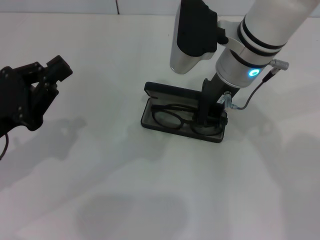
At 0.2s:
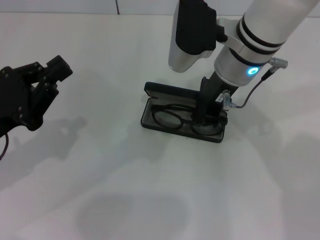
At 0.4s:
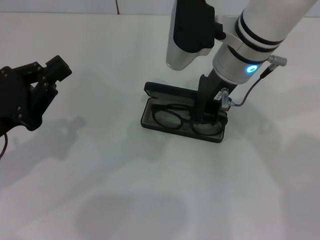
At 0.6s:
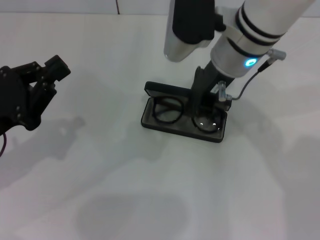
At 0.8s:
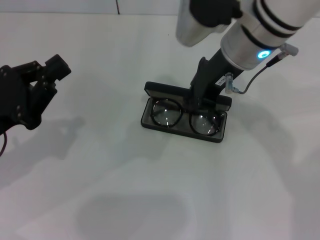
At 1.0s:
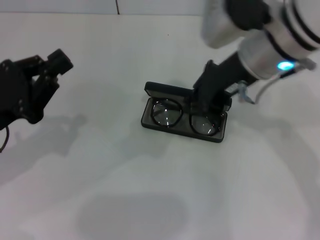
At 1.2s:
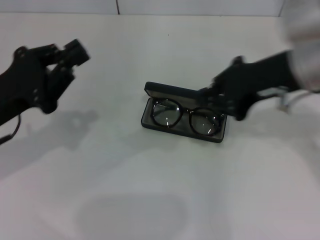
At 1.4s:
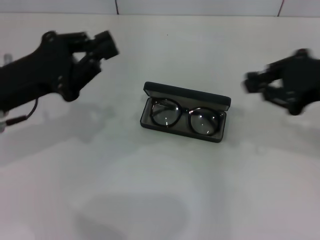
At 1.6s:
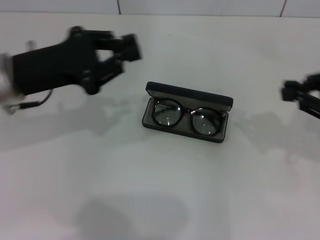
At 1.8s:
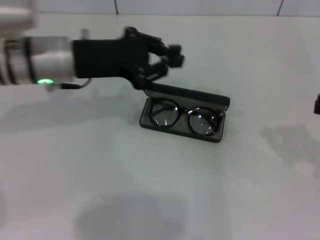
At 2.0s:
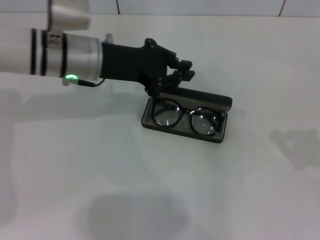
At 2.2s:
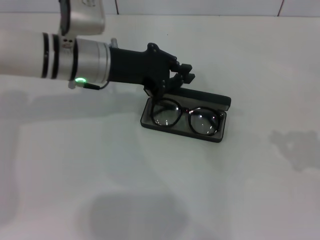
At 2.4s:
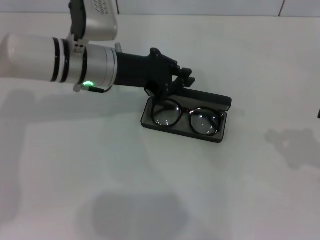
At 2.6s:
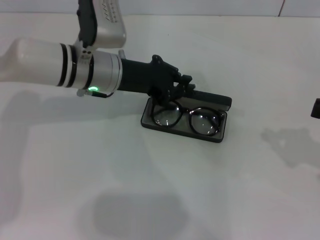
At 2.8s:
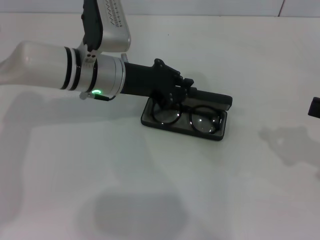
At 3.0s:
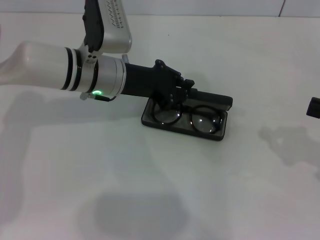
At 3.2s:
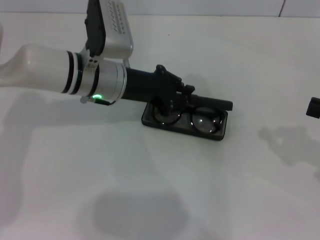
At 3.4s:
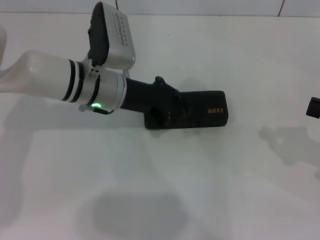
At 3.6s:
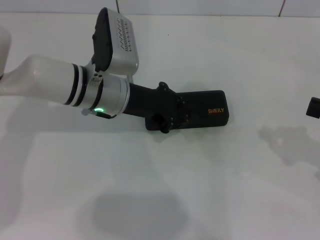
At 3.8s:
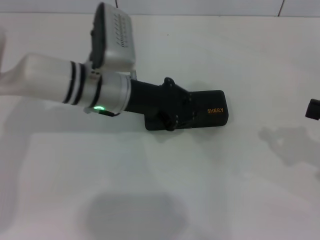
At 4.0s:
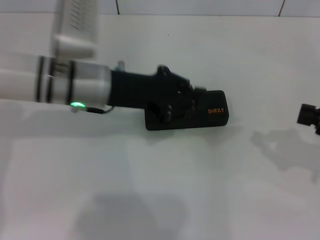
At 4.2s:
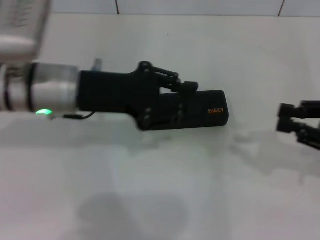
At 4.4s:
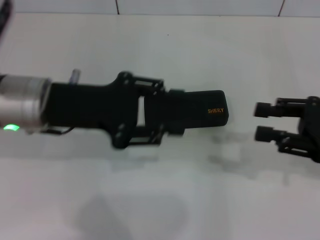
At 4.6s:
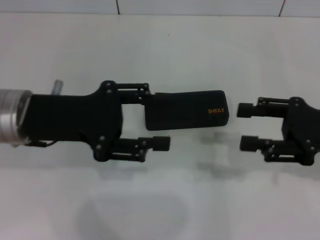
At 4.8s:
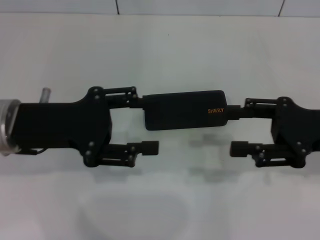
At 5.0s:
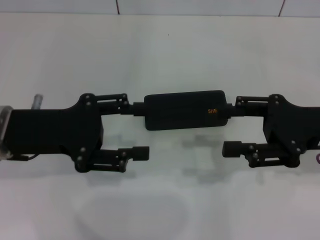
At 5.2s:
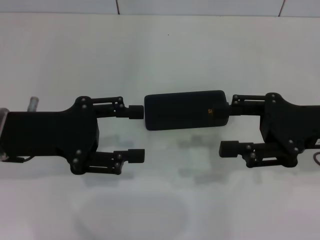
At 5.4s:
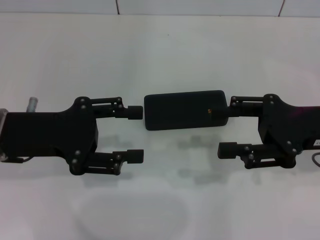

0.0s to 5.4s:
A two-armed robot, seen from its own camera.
Step, 0.8s to 3.4s: Close the glasses case with your left hand.
0.0s to 1.4s: The right gripper goes approximately 20 cm to the right and backward, while the left gripper heads forward, covering roughly 5 cm.
1.4s to 2.8s: The right gripper goes some 15 cm to the right and downward. Meanwhile the left gripper travels to the right and forward by approximately 15 cm.
2.8s to 4.0s: The left gripper ends up about 5 cm from where it was.
4.0s to 5.4s: The left gripper goes approximately 15 cm to the left and backward, and opens. The right gripper moves to the left, about 10 cm, and opens.

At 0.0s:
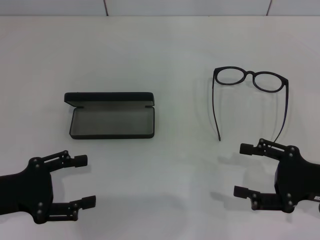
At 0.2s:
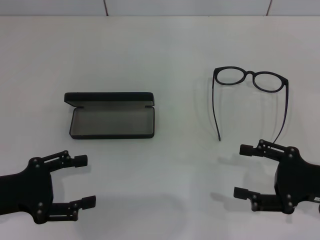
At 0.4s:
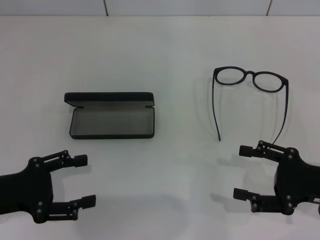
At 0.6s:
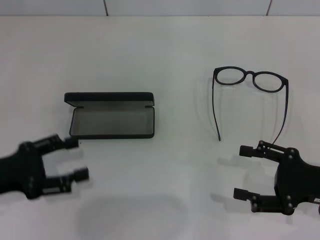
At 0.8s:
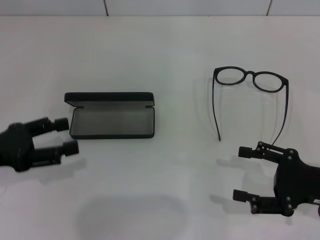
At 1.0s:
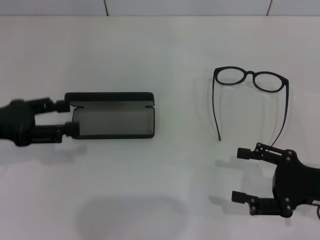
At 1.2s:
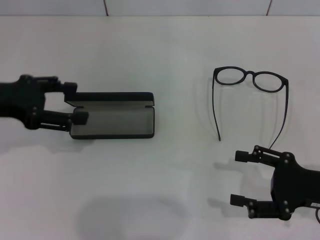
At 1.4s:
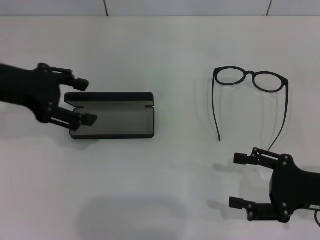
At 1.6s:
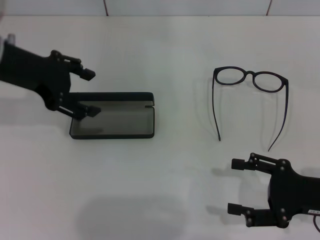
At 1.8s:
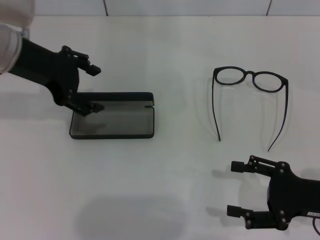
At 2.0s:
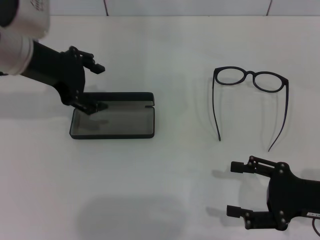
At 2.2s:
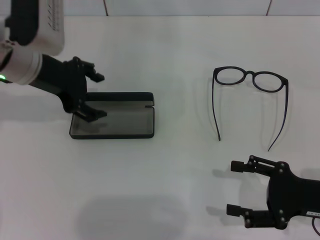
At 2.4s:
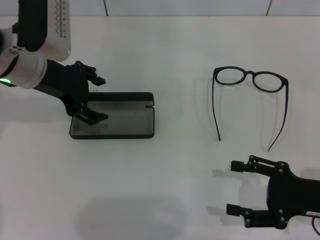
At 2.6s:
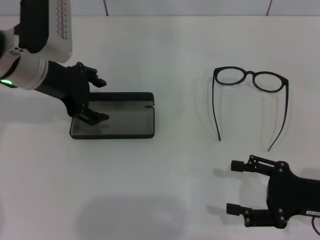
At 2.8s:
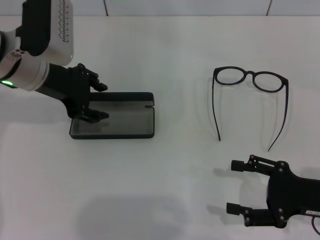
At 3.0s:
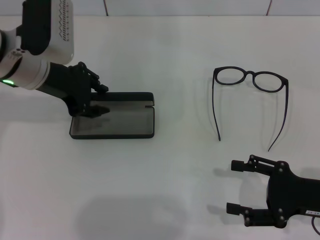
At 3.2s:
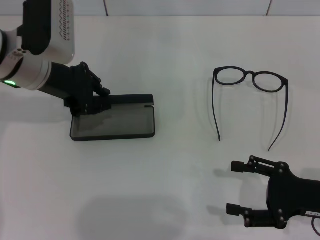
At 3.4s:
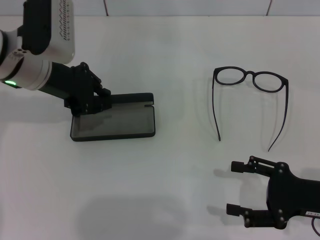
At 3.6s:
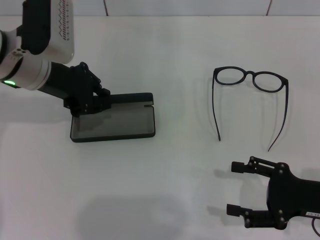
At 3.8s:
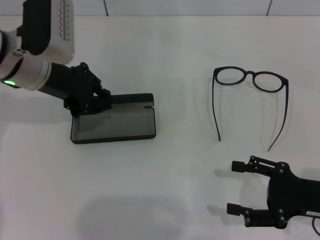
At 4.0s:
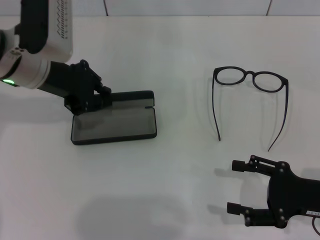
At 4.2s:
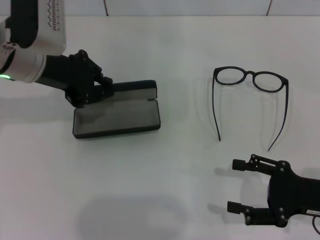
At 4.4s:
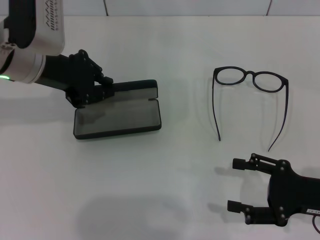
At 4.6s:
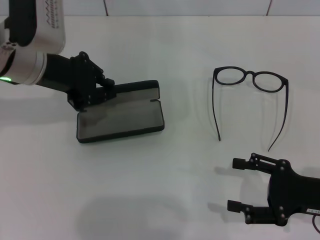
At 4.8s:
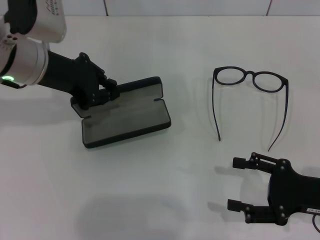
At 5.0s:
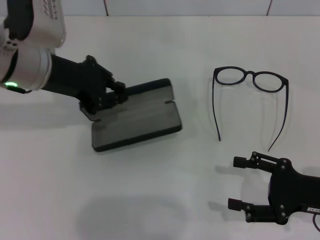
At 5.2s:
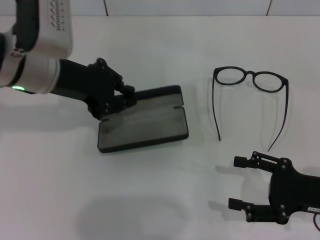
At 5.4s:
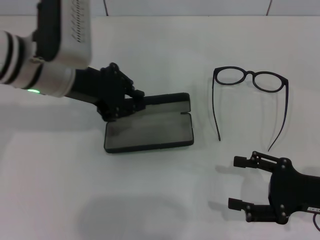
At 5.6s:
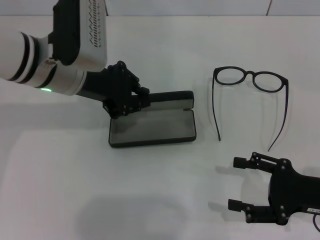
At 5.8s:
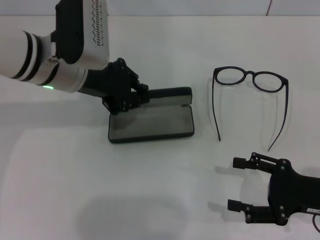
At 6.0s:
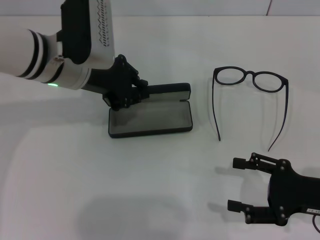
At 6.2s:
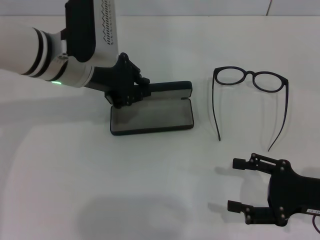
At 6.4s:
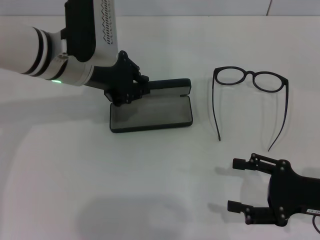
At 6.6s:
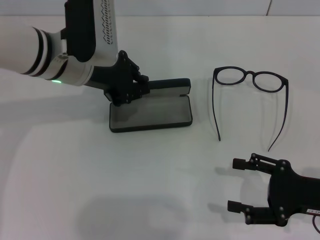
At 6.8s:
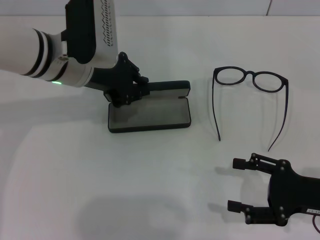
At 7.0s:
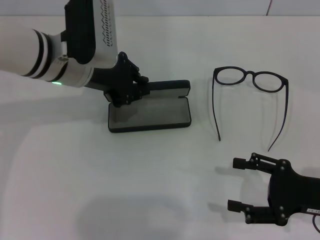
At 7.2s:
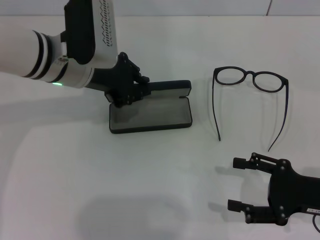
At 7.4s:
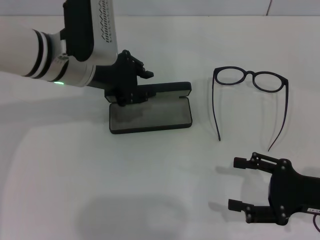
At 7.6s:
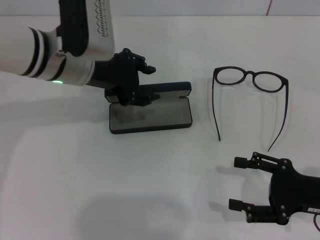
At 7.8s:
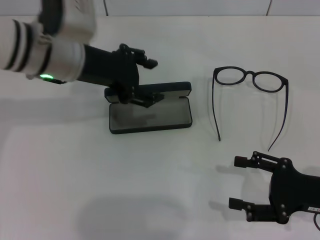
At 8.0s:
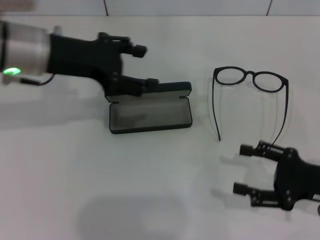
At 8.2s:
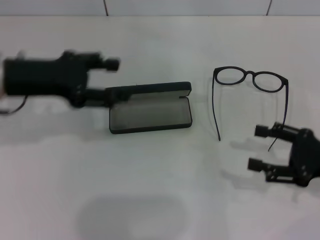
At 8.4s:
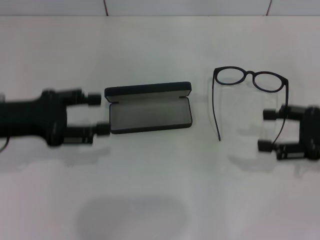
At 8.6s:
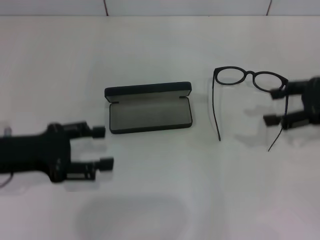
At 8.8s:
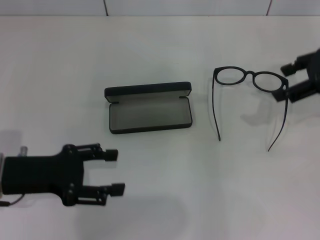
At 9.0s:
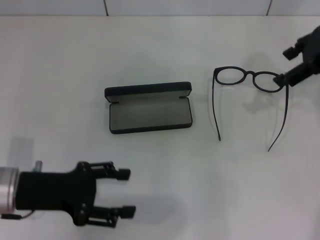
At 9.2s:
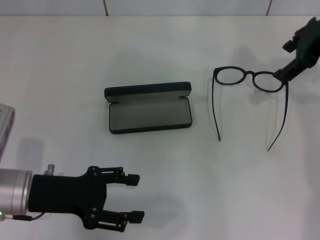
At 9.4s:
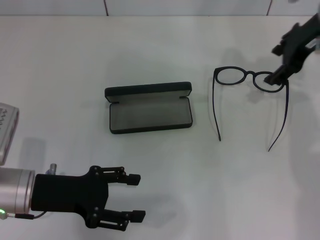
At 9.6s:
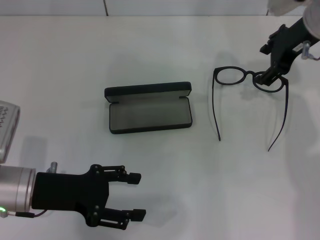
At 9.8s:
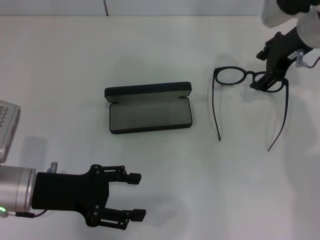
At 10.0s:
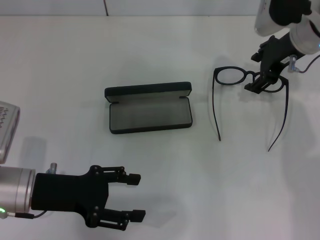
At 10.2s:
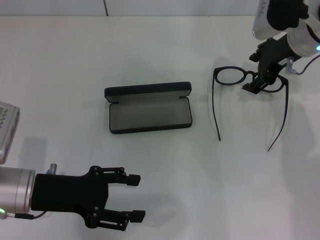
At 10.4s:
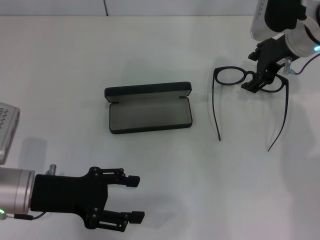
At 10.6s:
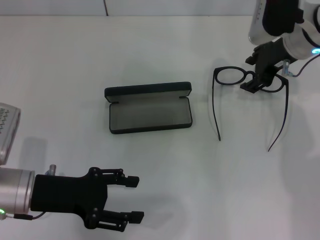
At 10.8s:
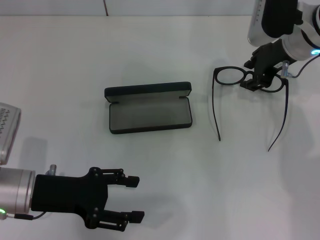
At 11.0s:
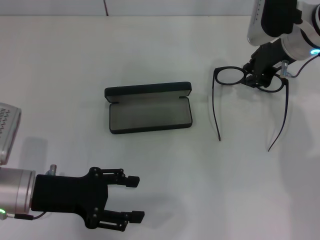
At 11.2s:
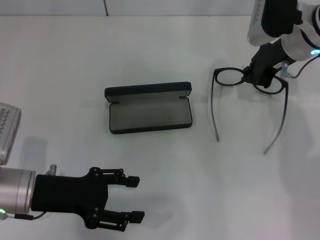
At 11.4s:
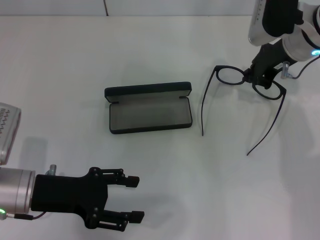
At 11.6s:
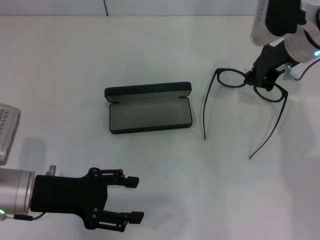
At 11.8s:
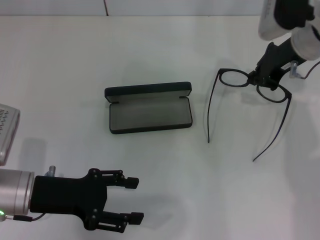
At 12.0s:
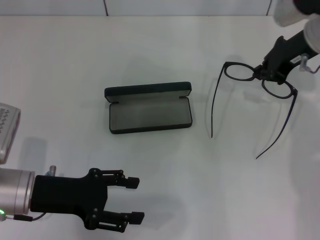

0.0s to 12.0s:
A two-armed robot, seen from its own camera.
Step, 0.0s to 3.2s: Grab the glasses case with your left hand.
Step, 3.6s to 7.2s: Place the glasses case in the center of the table with your left hand.
Step, 7.6s to 11.4s: Grab the eyeglass frame with your right hand.
0.0s to 1.6s: The left gripper heads forward and upward, covering some 20 cm.
1.6s to 3.0s: The left gripper shifts by about 5 cm.
3.0s to 4.4s: The left gripper closes its fingers.
4.4s to 6.0s: The left gripper travels to the right by roughly 5 cm.
6.0s to 7.6s: The grippers move only a little.
7.6s to 9.0s: The left gripper shifts some 20 cm backward, to the left and downward, and opens up. Meanwhile the right gripper goes roughly 25 cm upward and forward.
9.0s to 10.4s: The right gripper is displaced downward and to the left by roughly 10 cm.
10.4s to 12.0s: The right gripper closes.

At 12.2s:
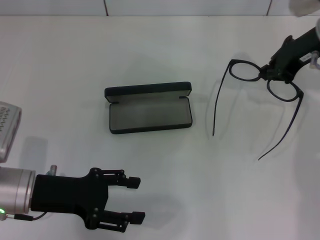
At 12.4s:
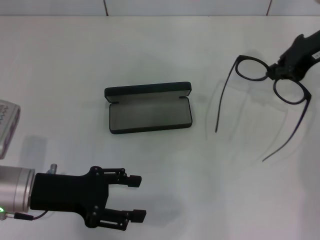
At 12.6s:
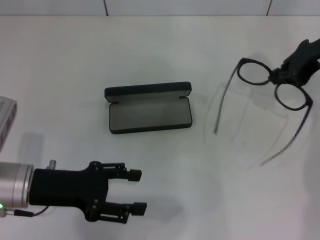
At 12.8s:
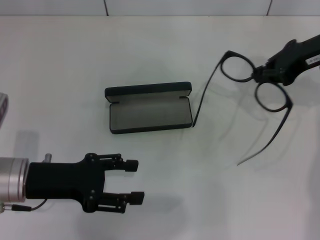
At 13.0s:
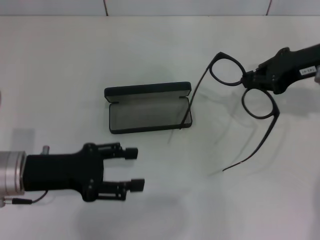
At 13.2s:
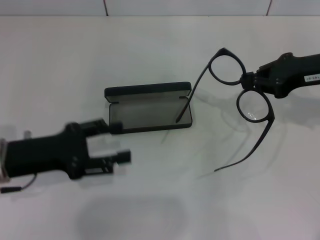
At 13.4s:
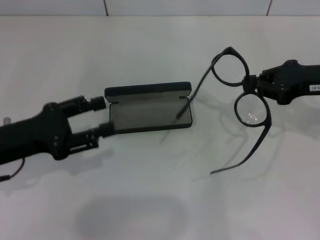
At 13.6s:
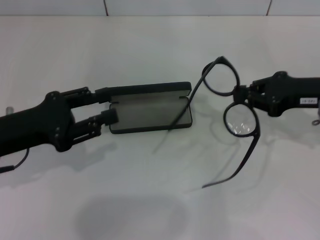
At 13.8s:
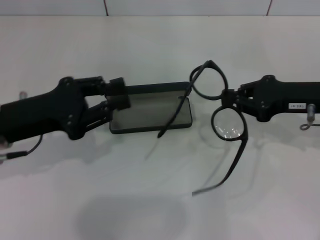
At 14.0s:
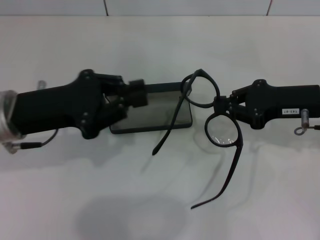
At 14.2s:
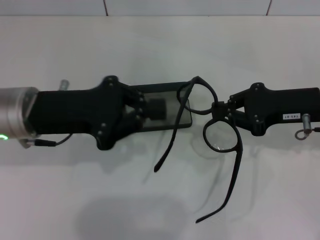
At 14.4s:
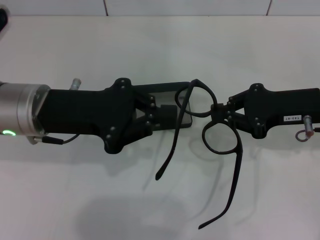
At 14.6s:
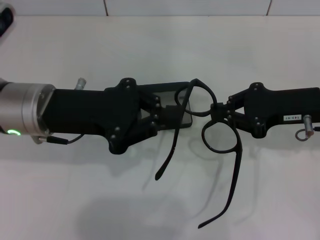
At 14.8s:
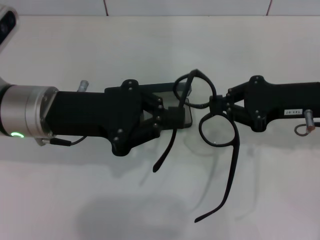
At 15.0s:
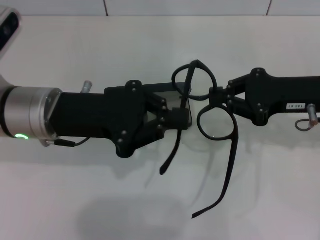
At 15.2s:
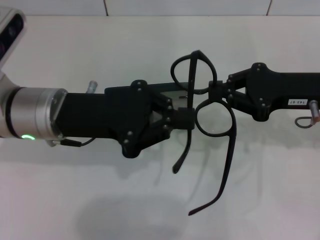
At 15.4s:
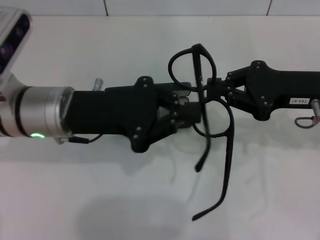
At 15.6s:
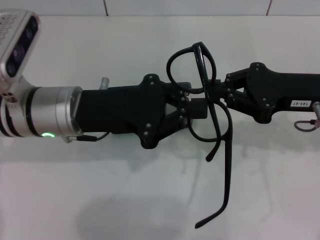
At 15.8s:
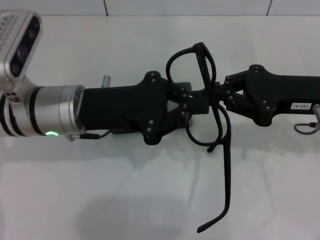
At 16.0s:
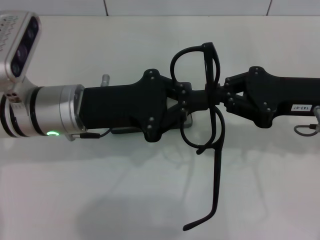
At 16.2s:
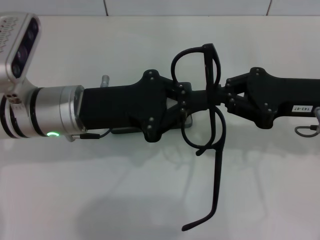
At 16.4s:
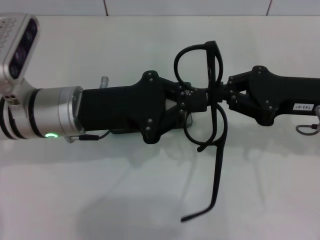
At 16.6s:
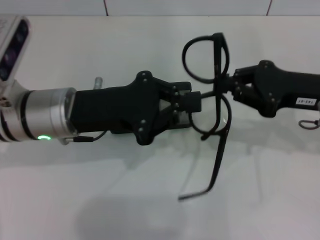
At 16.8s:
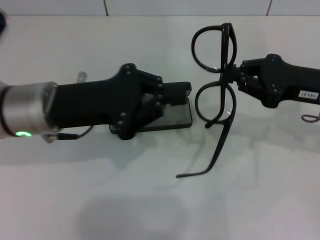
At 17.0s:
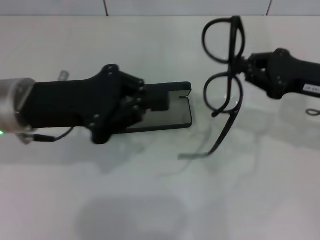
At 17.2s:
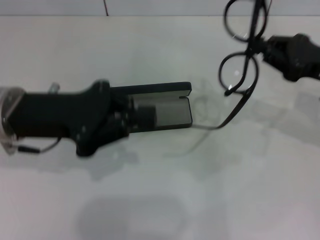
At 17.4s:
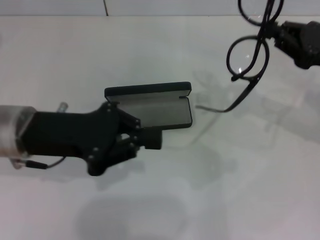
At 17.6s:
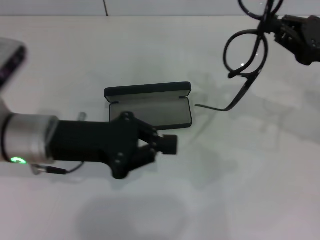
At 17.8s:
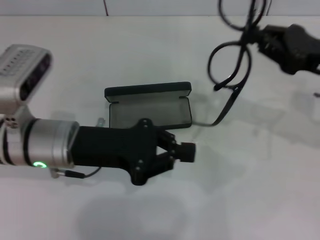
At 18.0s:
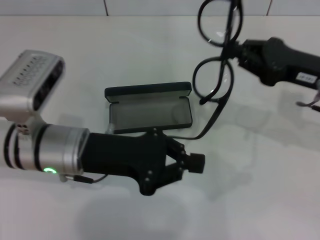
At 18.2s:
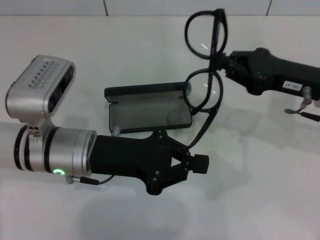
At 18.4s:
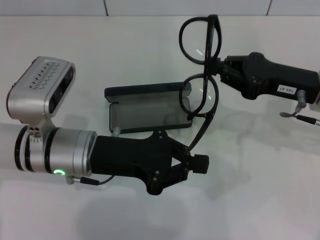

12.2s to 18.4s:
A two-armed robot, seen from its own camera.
12.2s to 13.8s: The right gripper is displaced backward and downward by roughly 10 cm; the left gripper heads upward, covering some 5 cm, and closes.
13.8s to 15.4s: The left gripper is displaced to the right by about 10 cm, and closes its fingers.
15.4s to 16.8s: The grippers make only small movements.
16.8s to 18.4s: The left gripper is displaced downward by approximately 5 cm.
